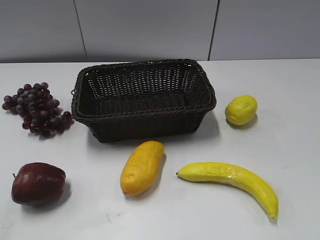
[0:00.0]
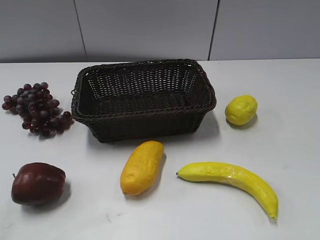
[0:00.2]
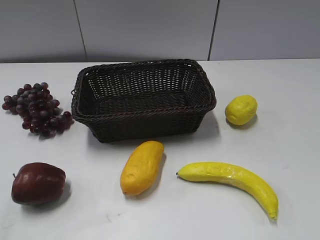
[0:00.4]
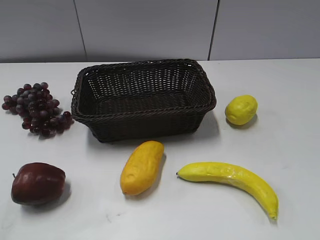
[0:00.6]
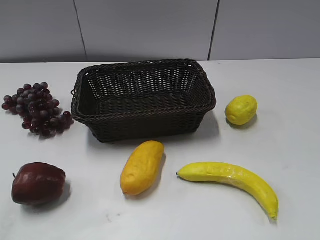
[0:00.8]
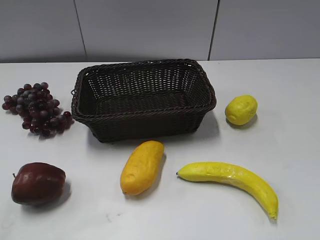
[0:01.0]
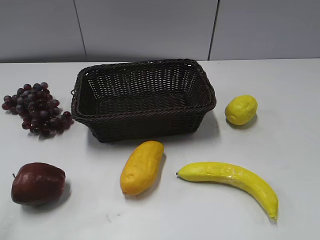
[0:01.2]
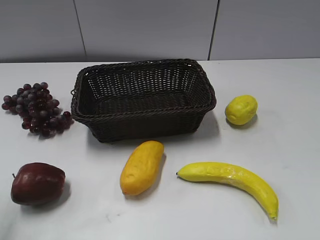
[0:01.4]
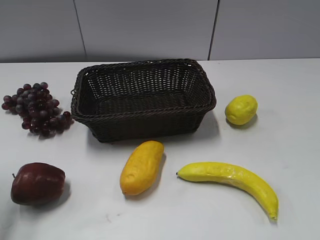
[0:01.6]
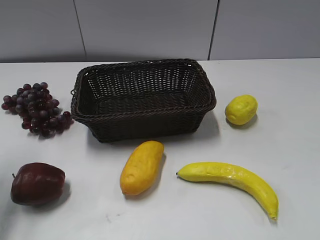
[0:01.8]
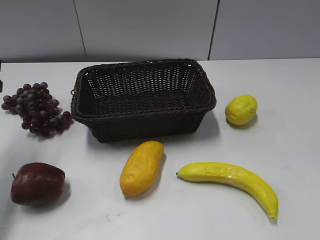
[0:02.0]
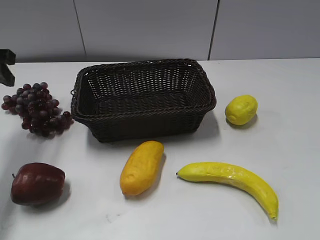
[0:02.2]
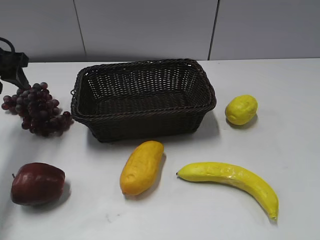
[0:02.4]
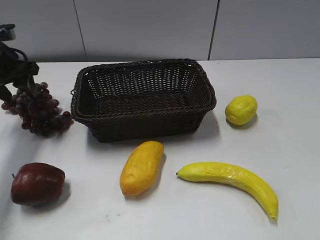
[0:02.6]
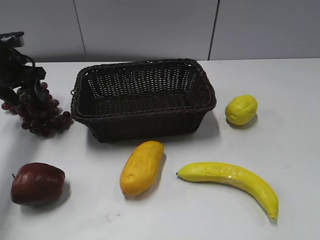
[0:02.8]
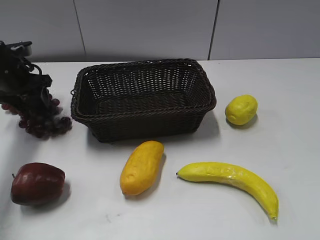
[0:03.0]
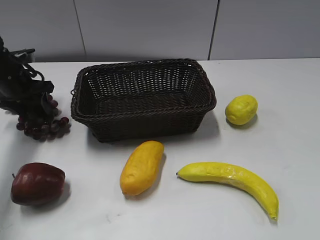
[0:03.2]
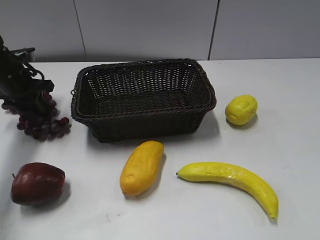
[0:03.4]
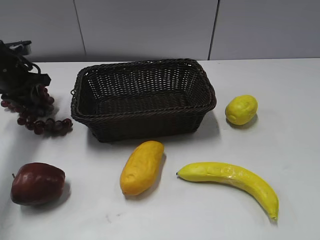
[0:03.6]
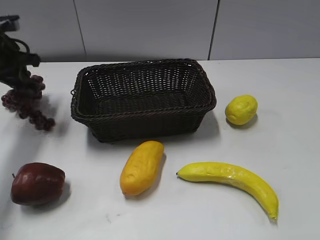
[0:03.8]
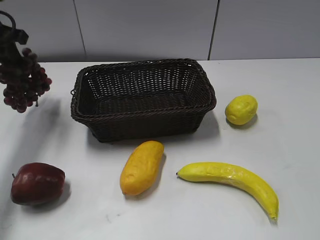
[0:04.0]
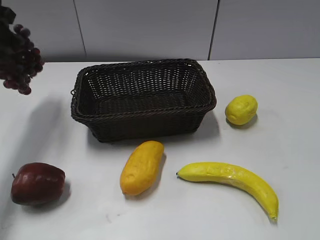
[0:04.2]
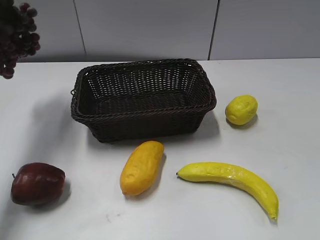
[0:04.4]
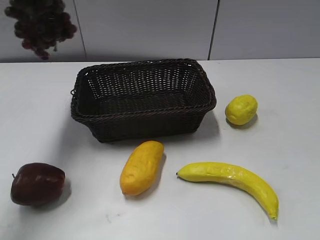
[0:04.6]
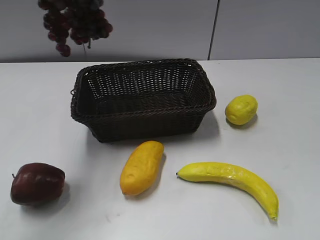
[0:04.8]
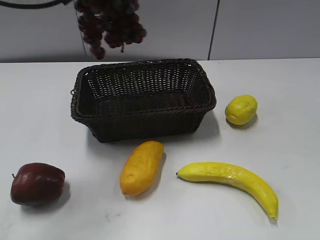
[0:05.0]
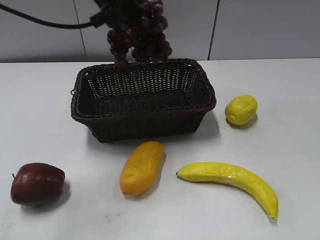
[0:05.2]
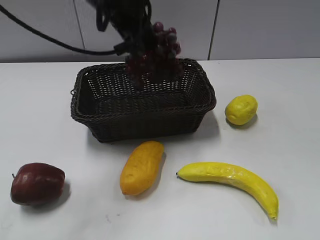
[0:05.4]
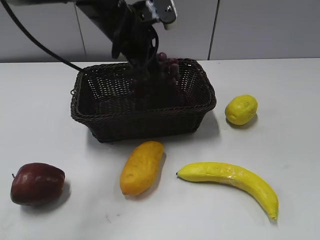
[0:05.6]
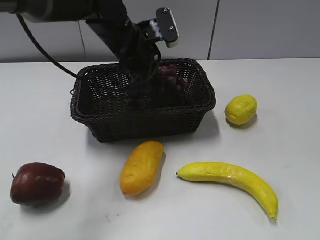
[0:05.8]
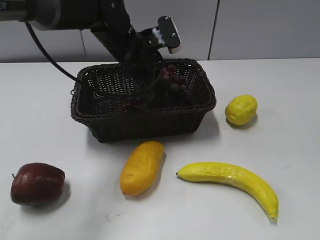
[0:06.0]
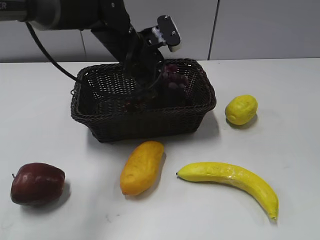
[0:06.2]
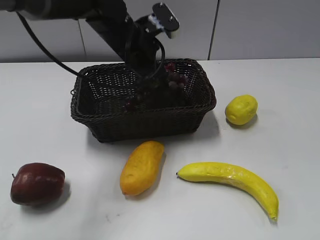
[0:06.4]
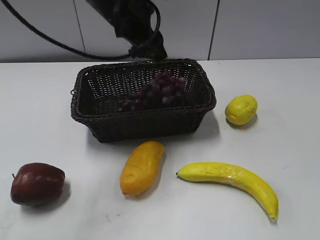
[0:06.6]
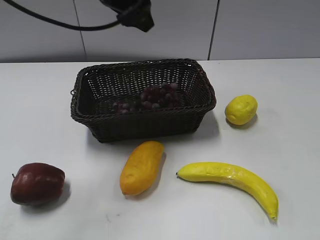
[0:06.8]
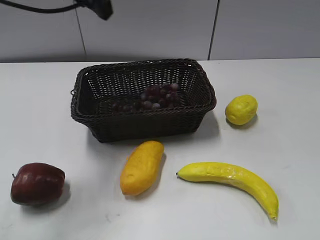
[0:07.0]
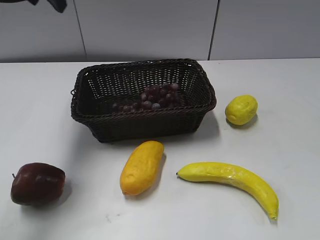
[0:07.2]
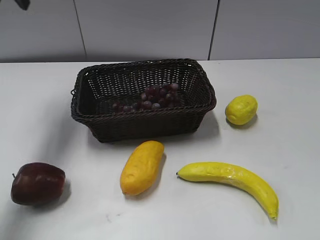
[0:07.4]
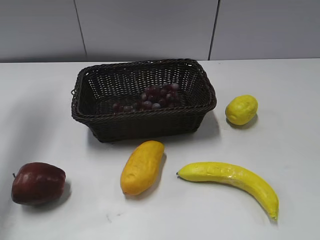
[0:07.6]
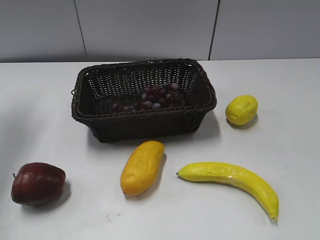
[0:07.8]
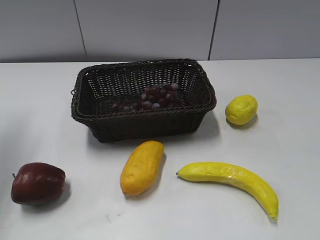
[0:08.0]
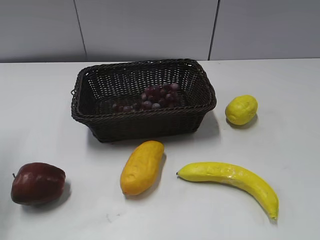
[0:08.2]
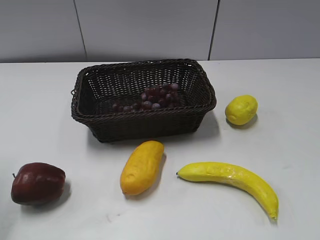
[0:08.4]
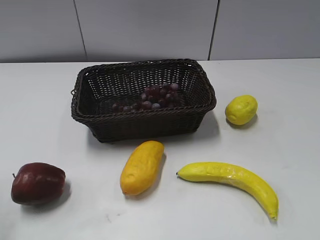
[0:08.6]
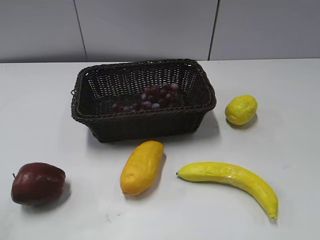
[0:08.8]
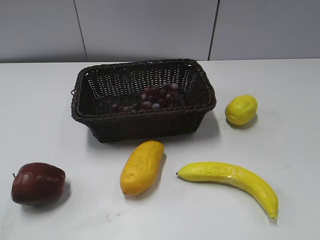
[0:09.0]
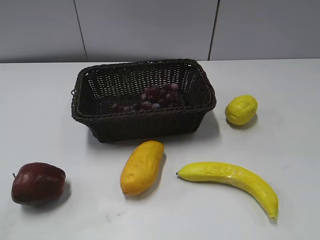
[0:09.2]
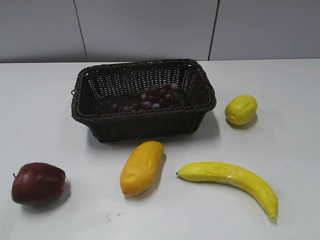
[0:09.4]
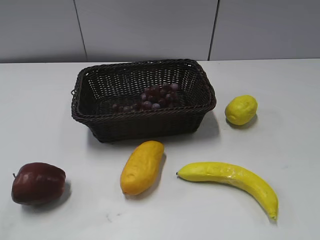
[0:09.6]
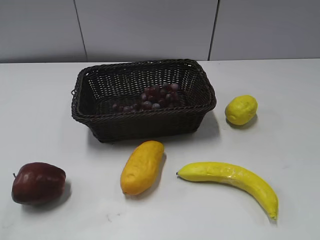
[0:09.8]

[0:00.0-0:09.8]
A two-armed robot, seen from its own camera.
Step, 0:02.0 to 0:03.8: Grasp the grape with left gripper.
Step, 0:04.0 to 0:06.4: Place the grape in the basket with left gripper.
0:01.4 to 0:02.8: The left gripper moves forward, about 30 cm, and opens up.
0:02.8 to 0:04.2: The left gripper moves upward, about 15 cm, and closes up.
0:04.2 to 0:05.6: The left gripper heads to the right, covering about 25 cm.
0:05.6 to 0:07.0: The left gripper moves upward and to the left, approximately 15 cm, and opens up.
0:07.0 to 0:08.4: The left gripper goes roughly 25 cm to the left and backward.

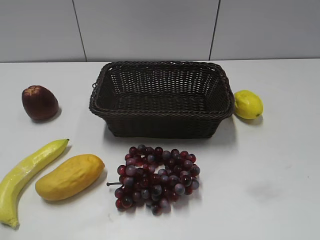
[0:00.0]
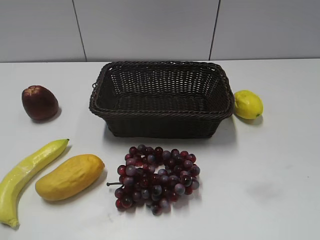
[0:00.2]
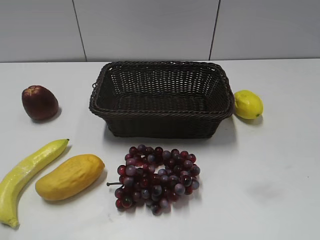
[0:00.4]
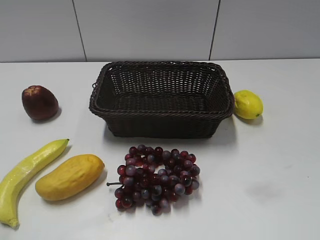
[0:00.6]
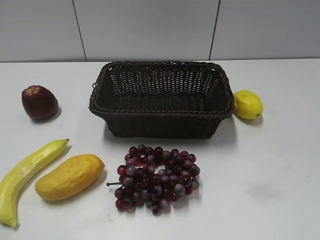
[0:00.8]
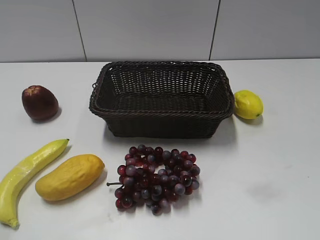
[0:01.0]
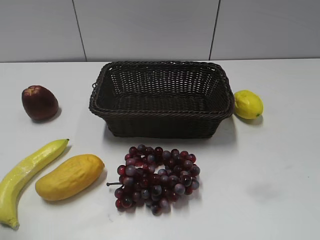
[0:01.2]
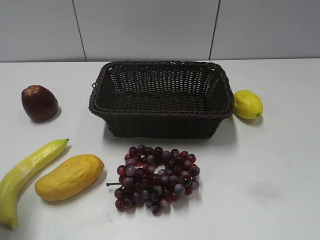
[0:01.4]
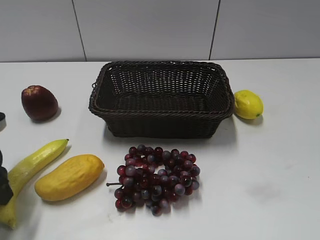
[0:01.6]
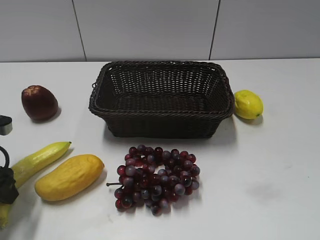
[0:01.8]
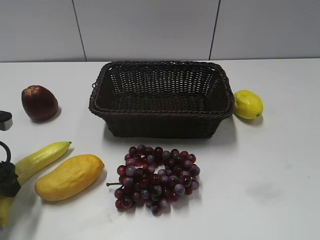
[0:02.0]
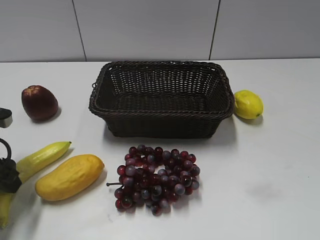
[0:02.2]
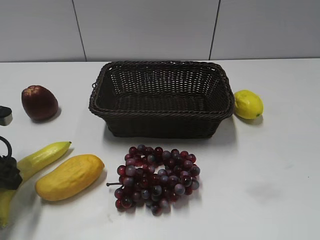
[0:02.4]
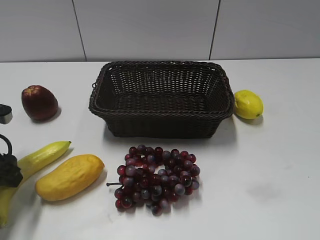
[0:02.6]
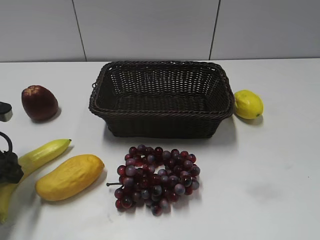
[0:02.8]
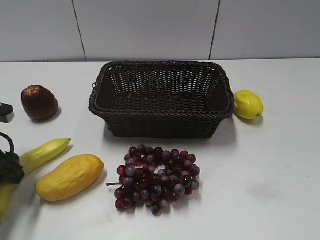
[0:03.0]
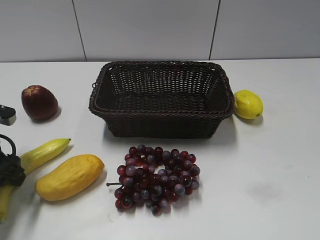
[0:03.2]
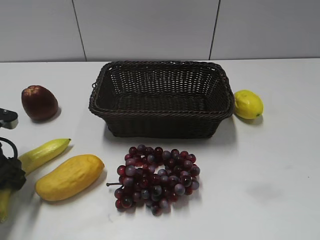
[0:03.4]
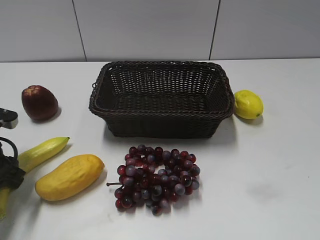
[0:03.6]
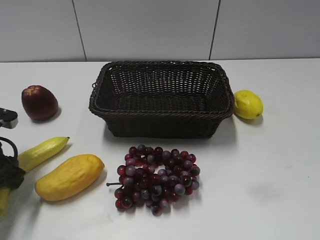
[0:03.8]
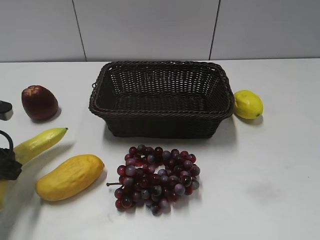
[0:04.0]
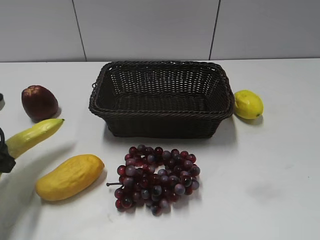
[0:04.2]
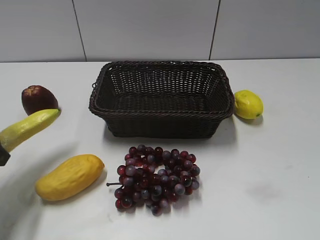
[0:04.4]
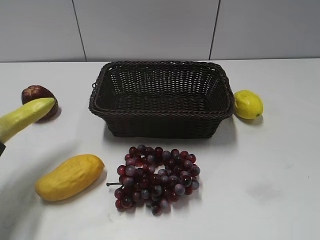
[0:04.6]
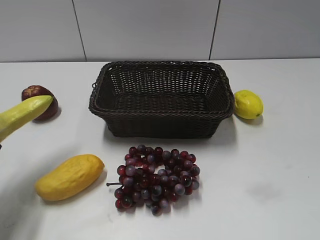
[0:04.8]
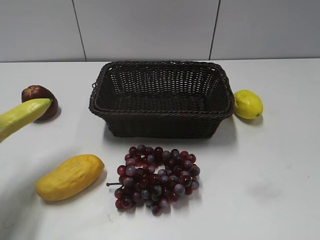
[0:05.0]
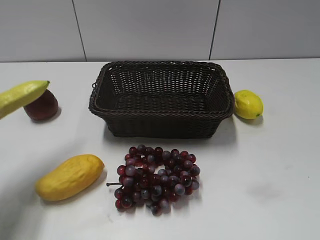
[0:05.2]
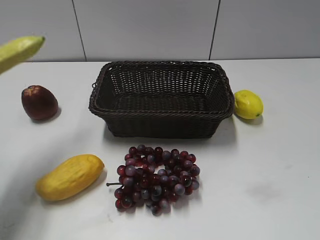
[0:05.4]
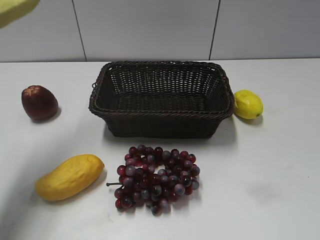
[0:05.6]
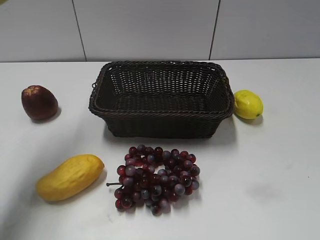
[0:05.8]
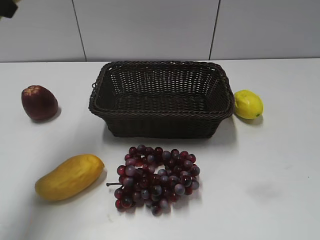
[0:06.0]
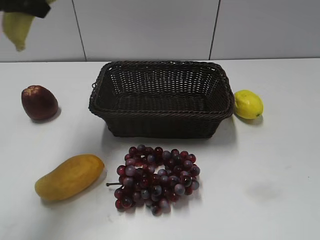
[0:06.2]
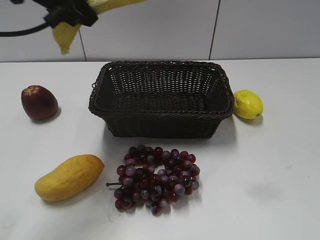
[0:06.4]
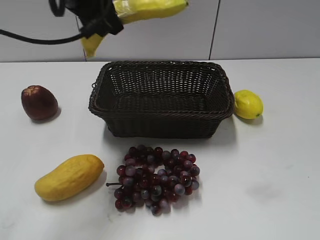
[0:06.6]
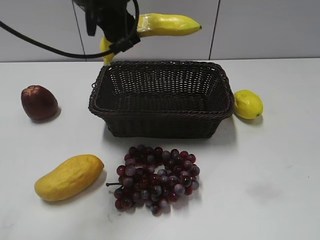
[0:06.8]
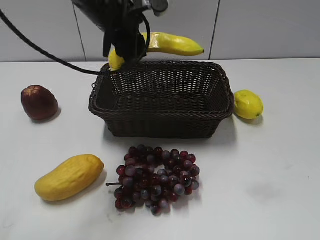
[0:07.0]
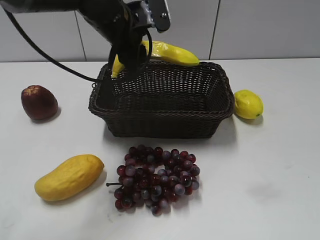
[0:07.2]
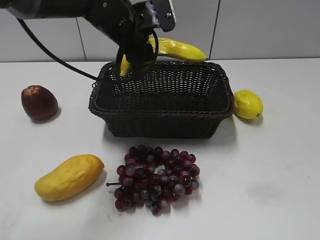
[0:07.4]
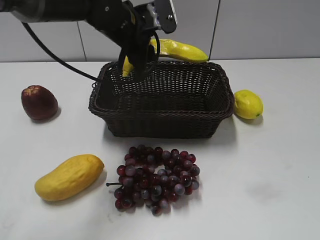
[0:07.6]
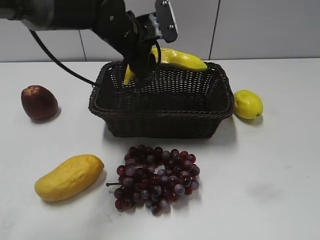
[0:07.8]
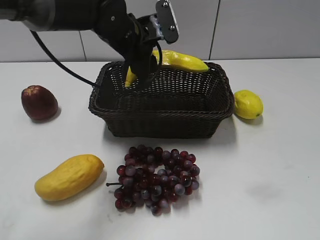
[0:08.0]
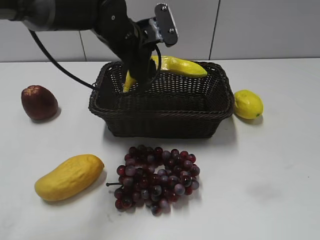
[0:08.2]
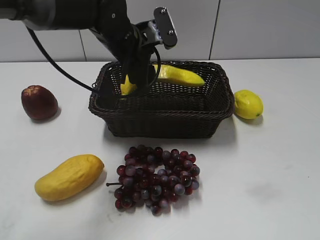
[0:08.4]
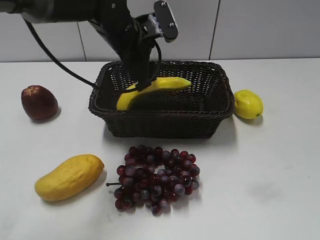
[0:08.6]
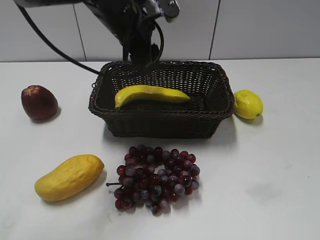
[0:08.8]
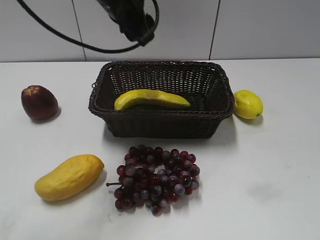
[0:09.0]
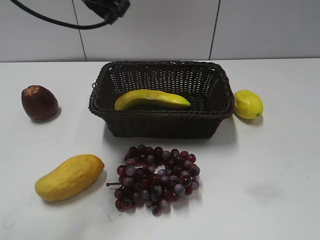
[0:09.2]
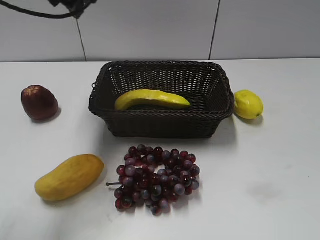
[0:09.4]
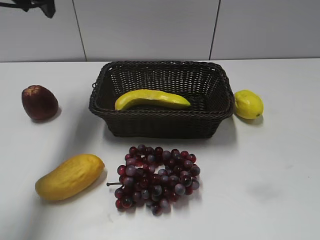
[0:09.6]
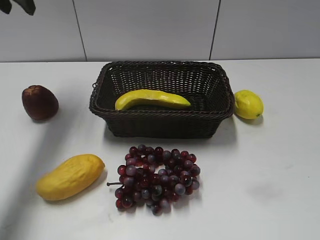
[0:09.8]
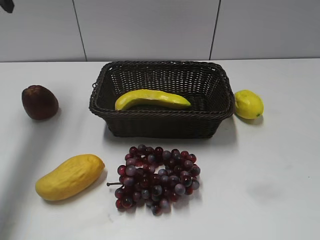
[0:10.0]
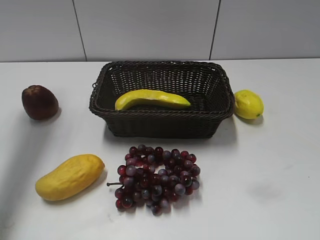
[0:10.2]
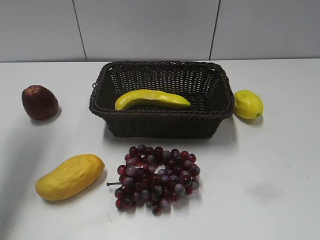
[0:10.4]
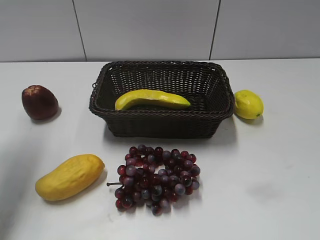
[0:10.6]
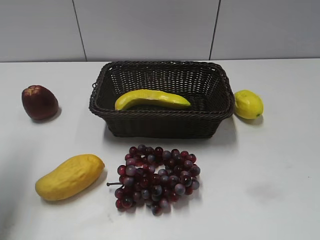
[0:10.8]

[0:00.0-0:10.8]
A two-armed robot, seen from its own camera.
Step, 0:01.6 to 0:03.6: Grasp the banana with left gripper.
Step, 0:04.0 to 0:08.4: Place the banana in the basket with left gripper.
0:01.6 to 0:03.0: The grippers make only small movements.
0:03.0 to 0:04.6: The left gripper is displaced upward by about 5 cm, and closes its fingers.
0:04.6 to 0:06.2: The left gripper moves upward, to the right and forward, roughly 20 cm.
0:06.2 to 0:07.8: The left gripper shifts some 25 cm downward, to the right and forward.
0:07.8 to 0:09.2: The left gripper shifts approximately 15 cm upward and to the left, and opens its fingers.
0:09.2 to 0:10.8: The left gripper heads to the left and backward, covering about 25 cm.

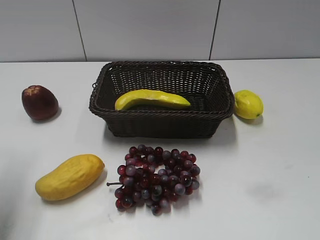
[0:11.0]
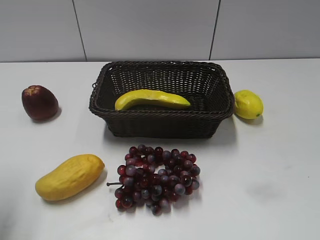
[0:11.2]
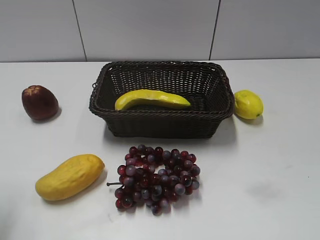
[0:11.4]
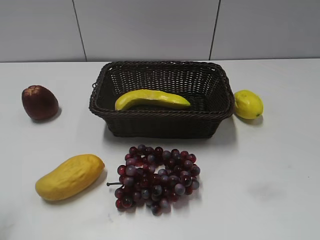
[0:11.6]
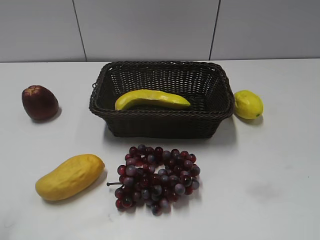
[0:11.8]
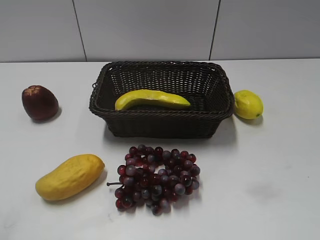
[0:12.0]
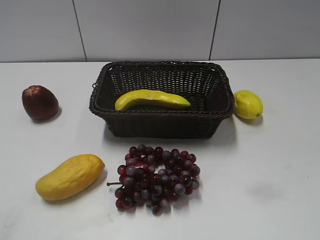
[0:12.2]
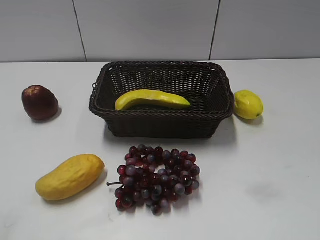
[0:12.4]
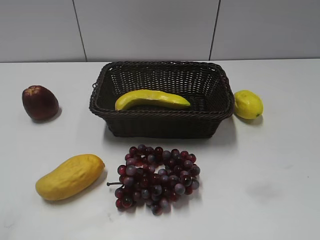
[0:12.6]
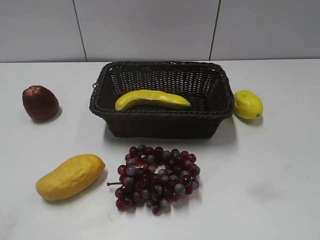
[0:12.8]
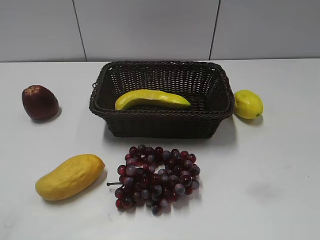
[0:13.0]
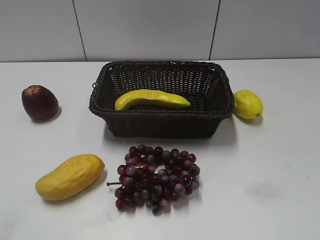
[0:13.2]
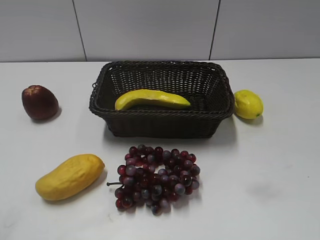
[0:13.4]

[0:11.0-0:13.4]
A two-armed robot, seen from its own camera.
0:11.0 to 0:12.2: The left gripper shifts roughly 20 cm backward.
